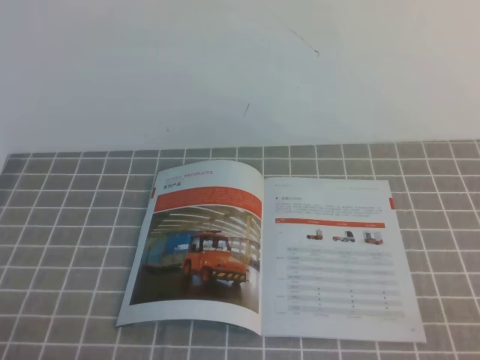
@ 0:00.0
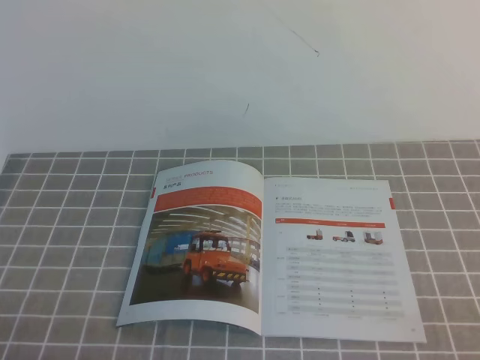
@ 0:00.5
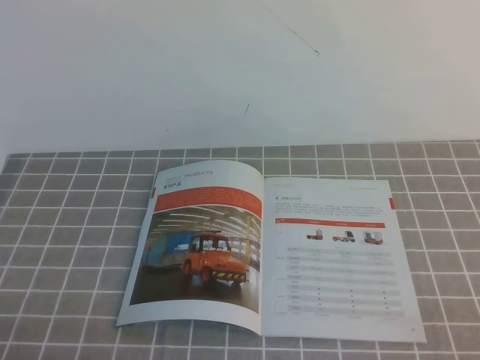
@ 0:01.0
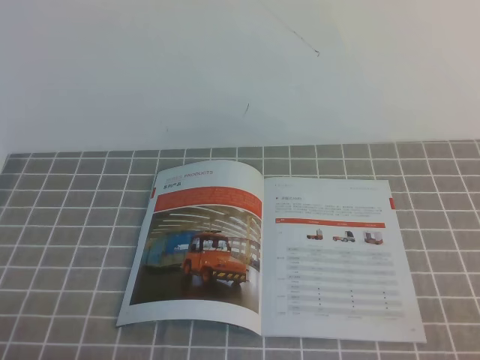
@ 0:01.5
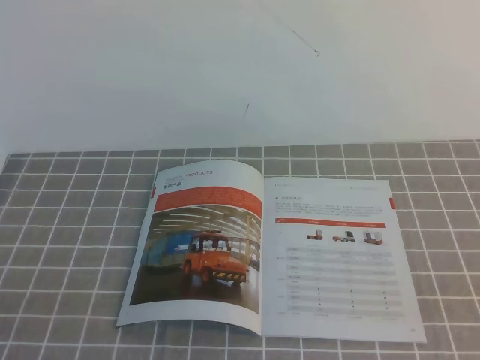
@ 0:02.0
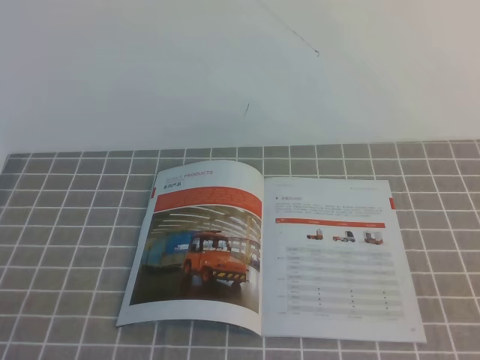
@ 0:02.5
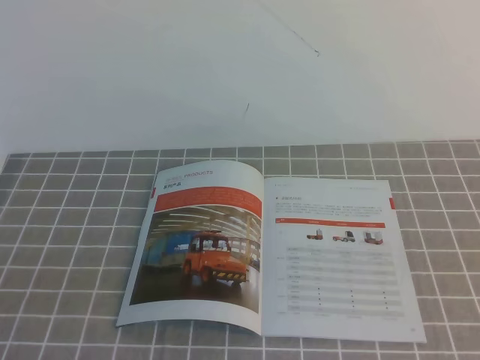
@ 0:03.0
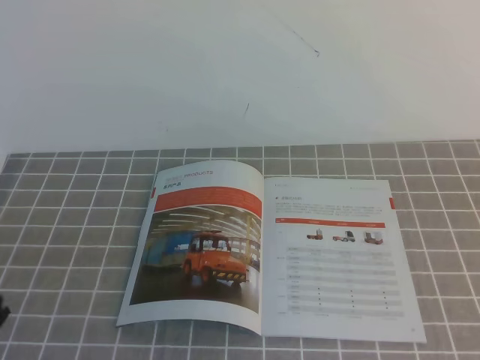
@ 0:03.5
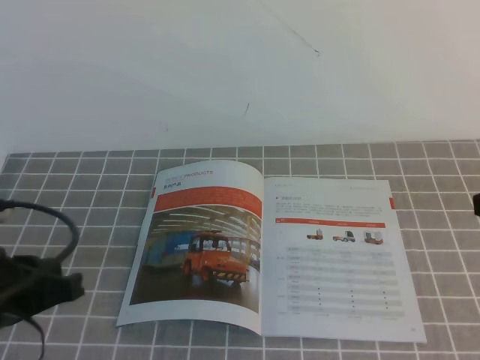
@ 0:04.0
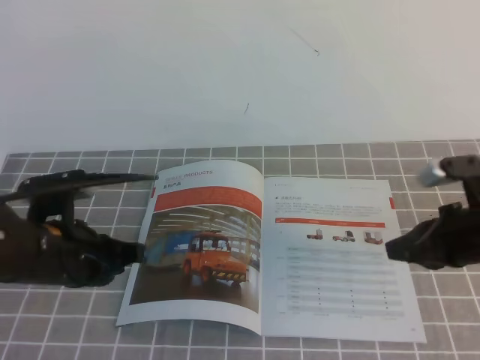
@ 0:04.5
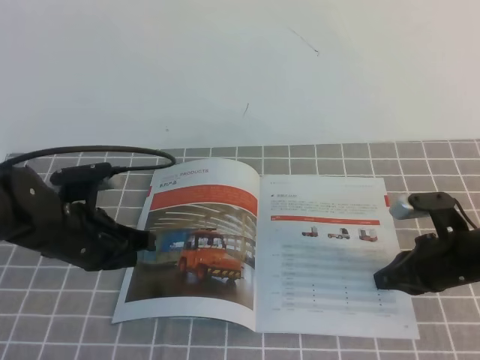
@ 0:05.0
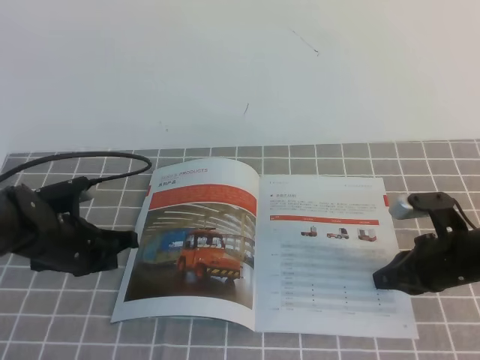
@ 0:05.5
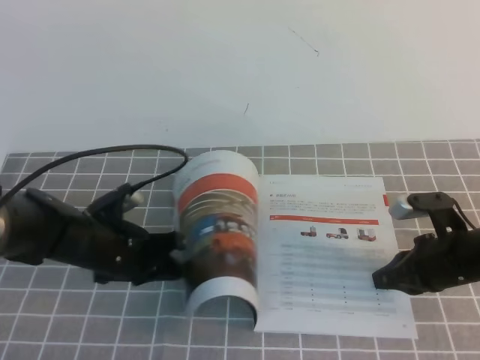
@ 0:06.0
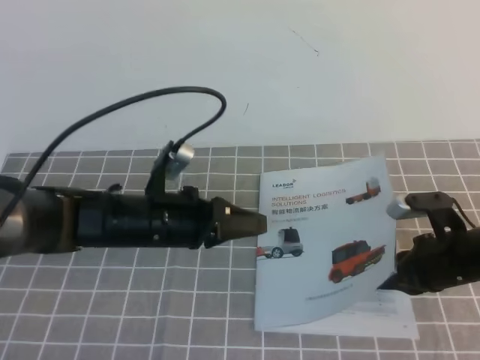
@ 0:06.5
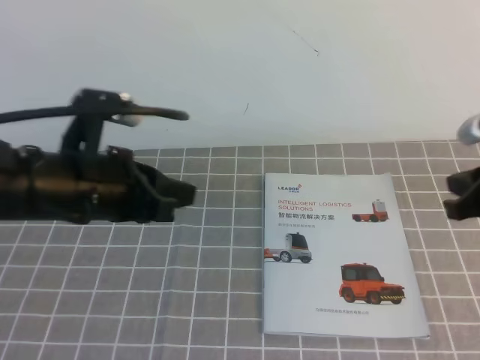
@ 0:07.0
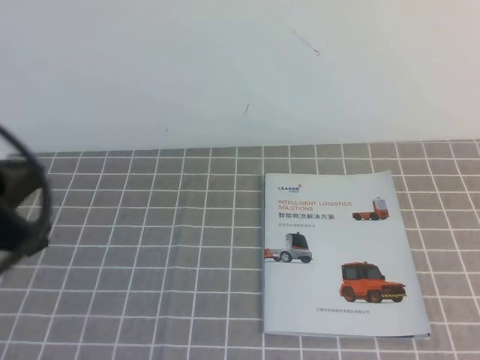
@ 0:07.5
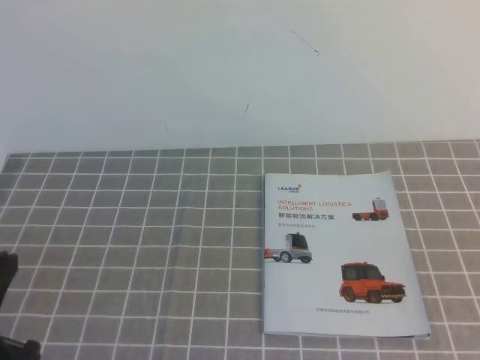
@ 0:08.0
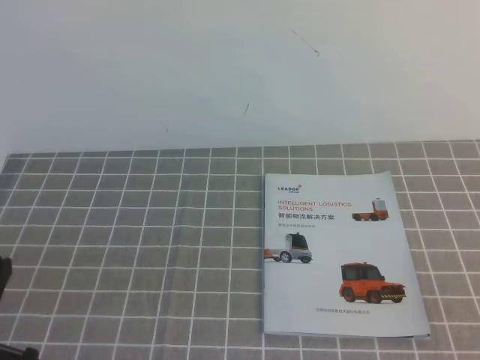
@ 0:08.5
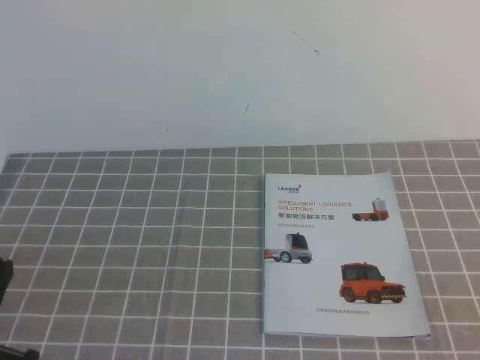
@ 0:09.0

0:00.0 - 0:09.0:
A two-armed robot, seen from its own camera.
Task of the whole recording: on the grey tablecloth, hold the book with one hand and close it with the other.
0:02.0 - 0:04.5: The two grippers go roughly 25 cm forward.
0:04.5 - 0:07.0: The left gripper goes about 5 cm upward.
0:07.0 - 0:09.0: The right gripper travels backward by about 25 cm; the left gripper moves backward and to the left, roughly 20 cm.
